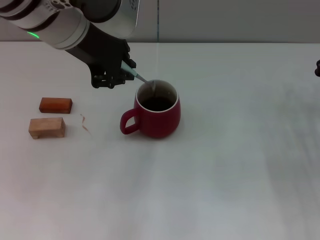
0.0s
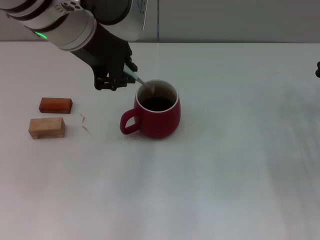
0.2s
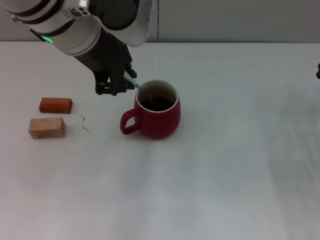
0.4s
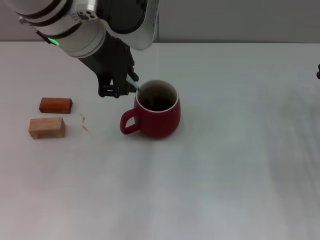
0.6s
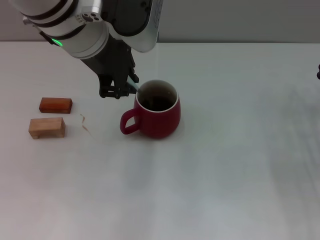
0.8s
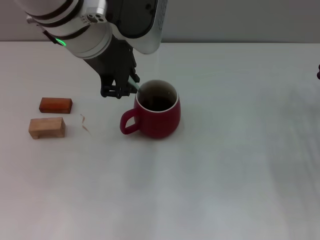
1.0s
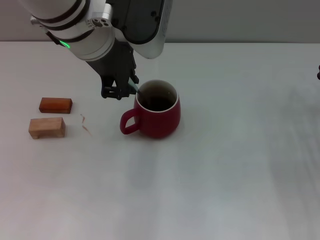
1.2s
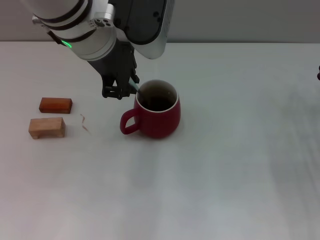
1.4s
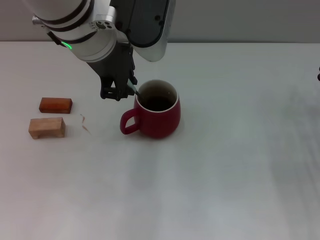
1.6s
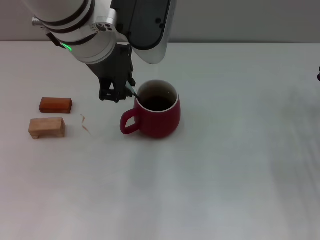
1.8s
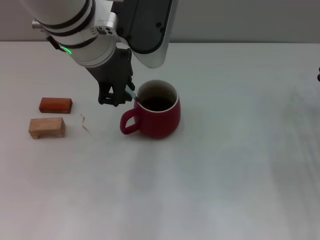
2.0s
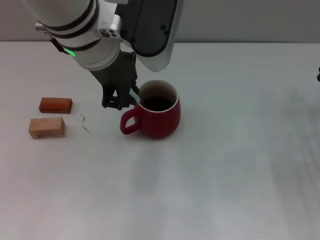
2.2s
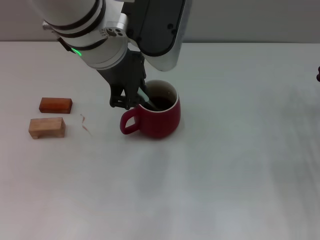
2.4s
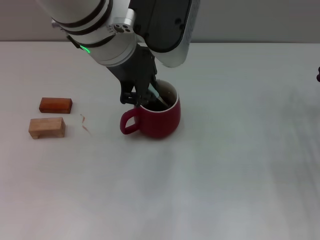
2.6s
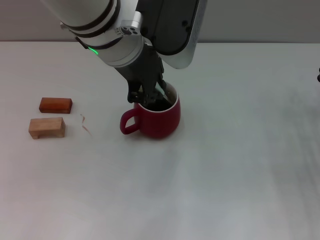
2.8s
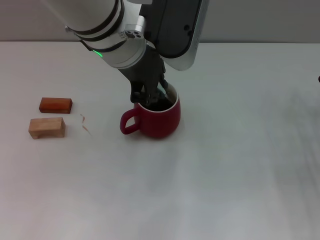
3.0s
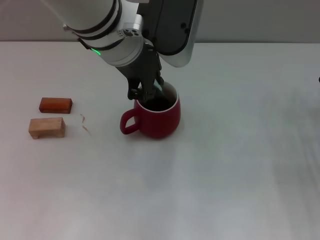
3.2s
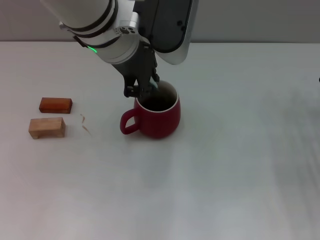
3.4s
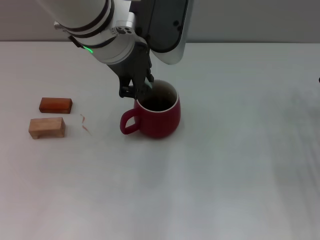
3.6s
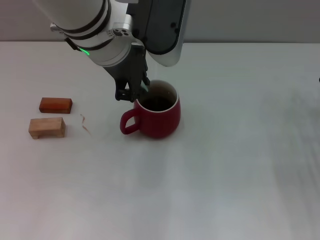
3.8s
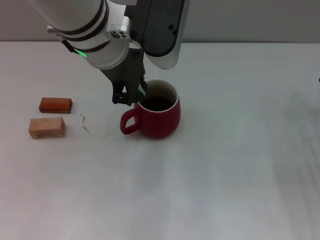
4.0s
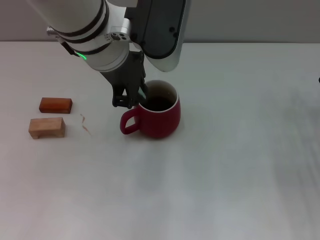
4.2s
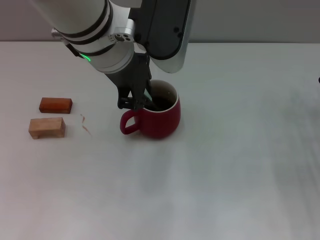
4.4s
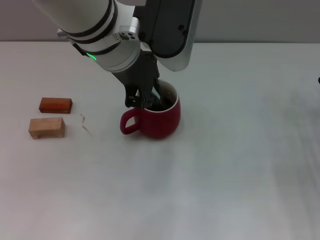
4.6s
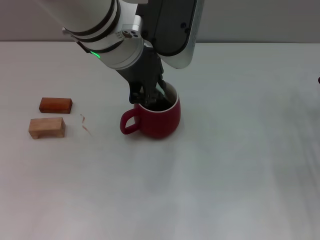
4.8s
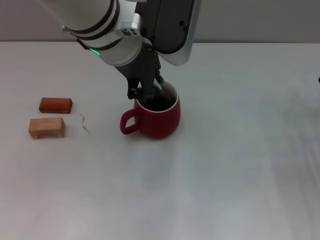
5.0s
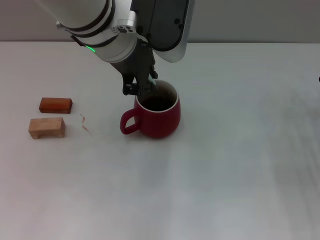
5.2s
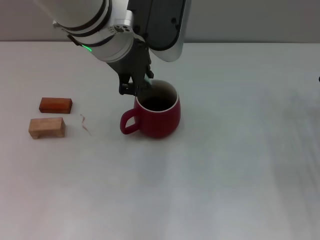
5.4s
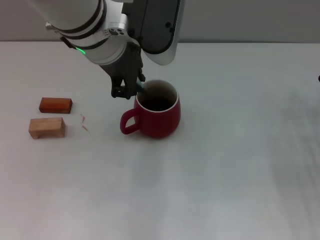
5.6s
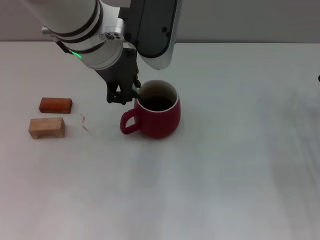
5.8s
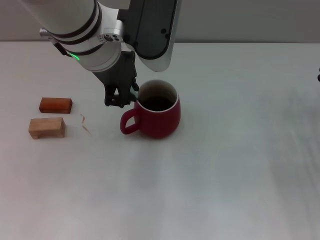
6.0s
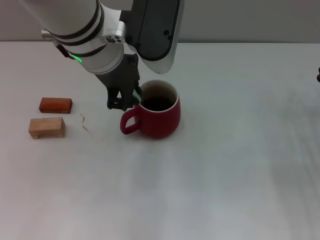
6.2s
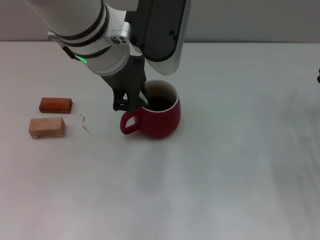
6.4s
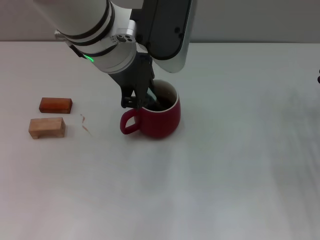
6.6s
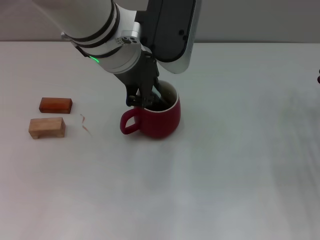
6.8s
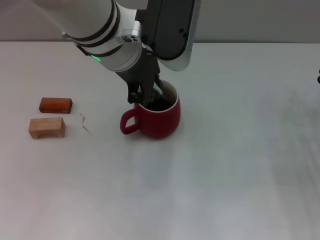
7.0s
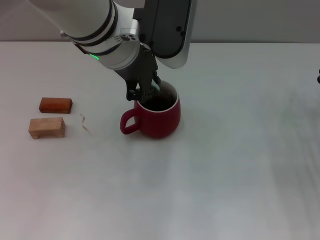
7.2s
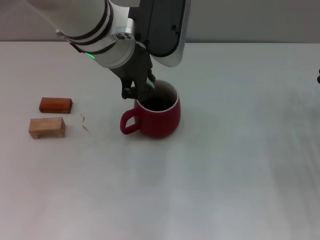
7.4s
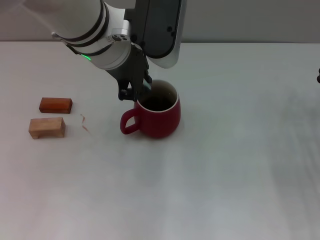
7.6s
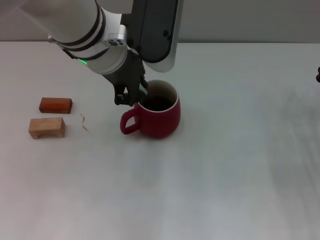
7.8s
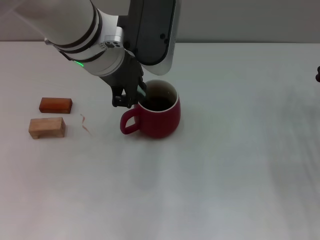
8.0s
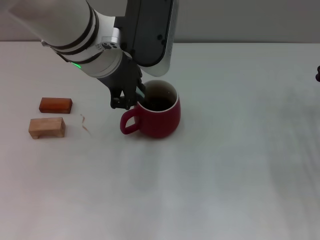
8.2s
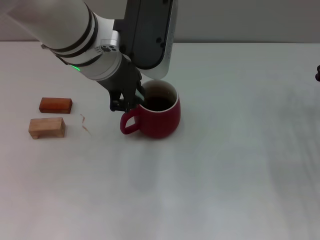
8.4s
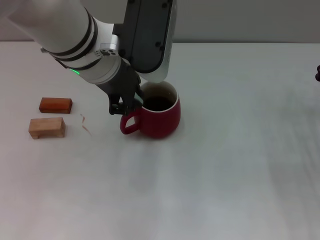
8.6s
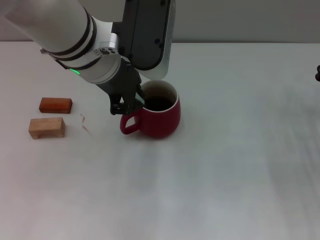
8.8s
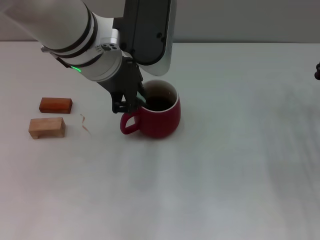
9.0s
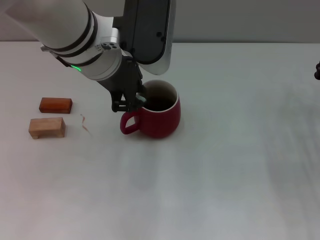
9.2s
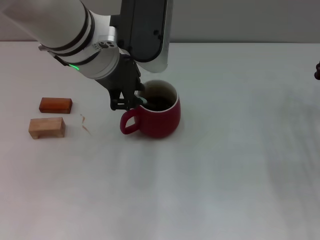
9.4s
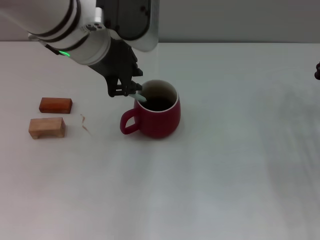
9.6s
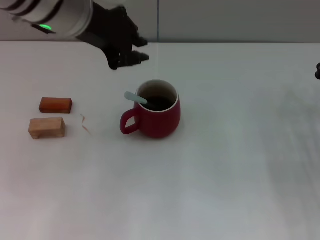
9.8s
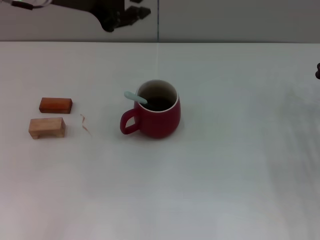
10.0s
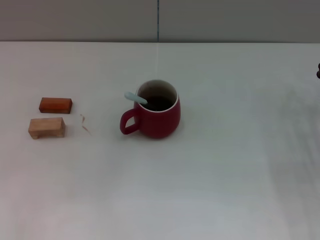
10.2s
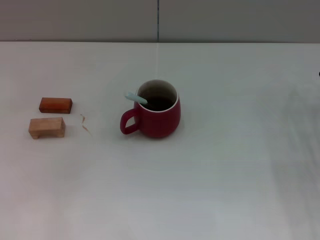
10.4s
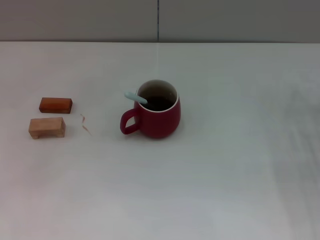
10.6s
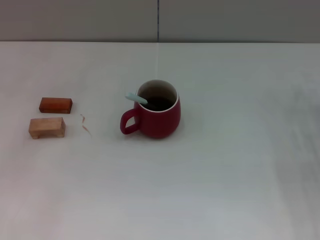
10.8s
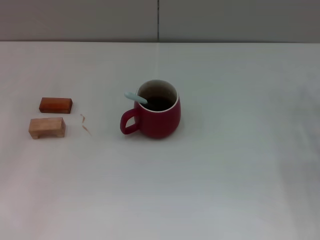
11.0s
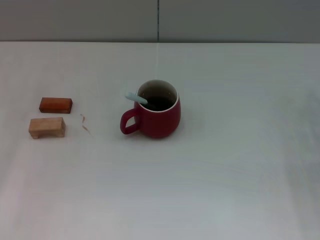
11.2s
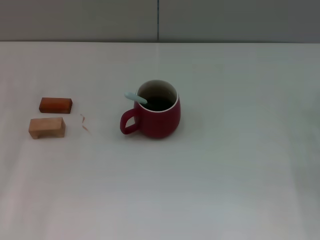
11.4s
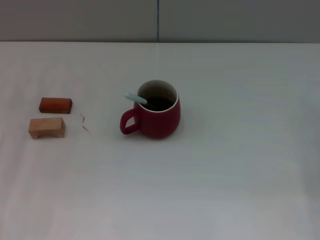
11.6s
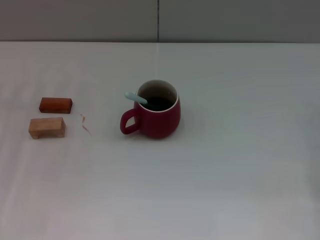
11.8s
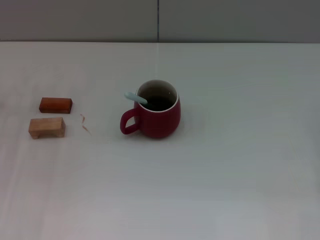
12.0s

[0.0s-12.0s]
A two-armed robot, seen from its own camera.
Task of the whole recording: Move the red cup to the center, lift the blue spoon, stir it three times in the cup, and put the spoon into the cup.
Step, 0.0s to 9.8s: Stir the coffee in the cup with the left gripper.
0.0s to 1.6s: The grippers move only a little.
1.6s to 9.0s: The grippers stay close to where they were, moving slightly.
9.0s to 10.4s: The left gripper moves to the left, some 15 cm.
10.4s to 12.0s: The left gripper travels downward by about 20 cm.
